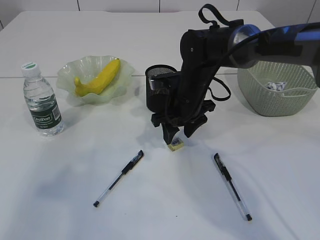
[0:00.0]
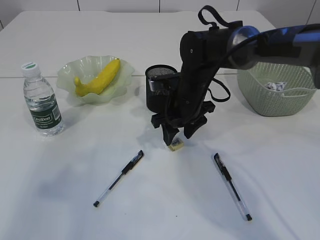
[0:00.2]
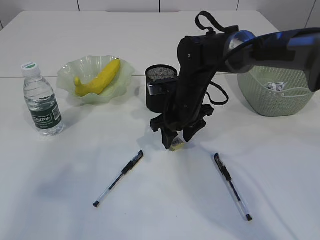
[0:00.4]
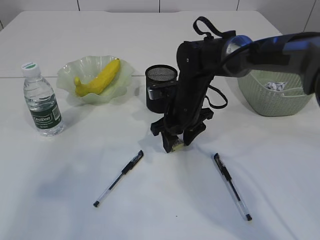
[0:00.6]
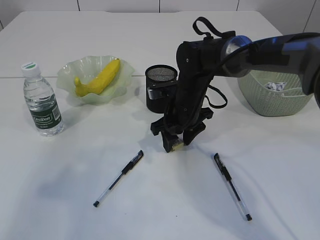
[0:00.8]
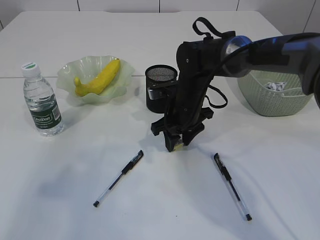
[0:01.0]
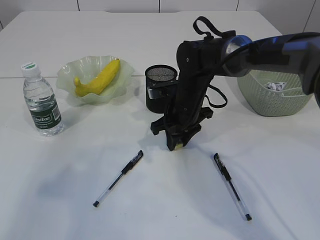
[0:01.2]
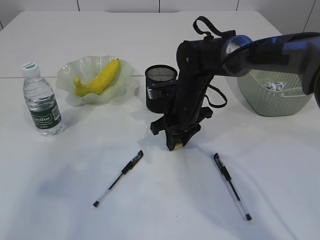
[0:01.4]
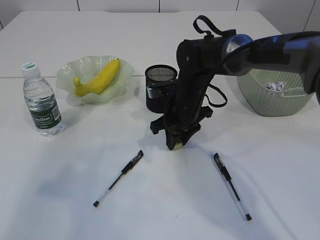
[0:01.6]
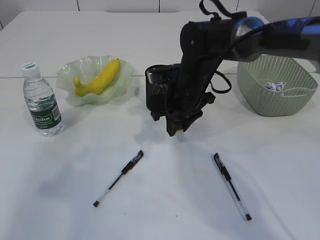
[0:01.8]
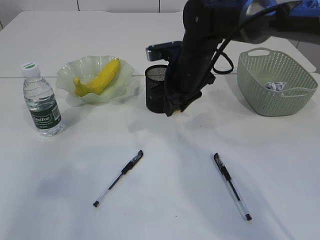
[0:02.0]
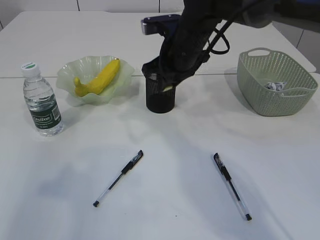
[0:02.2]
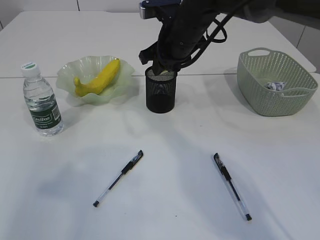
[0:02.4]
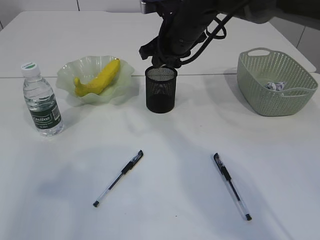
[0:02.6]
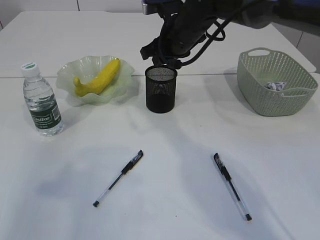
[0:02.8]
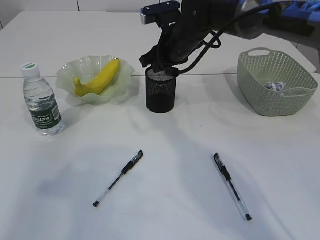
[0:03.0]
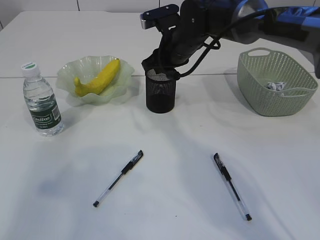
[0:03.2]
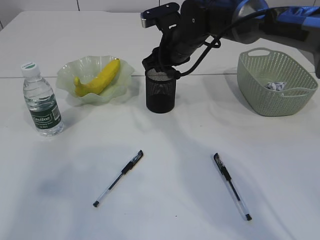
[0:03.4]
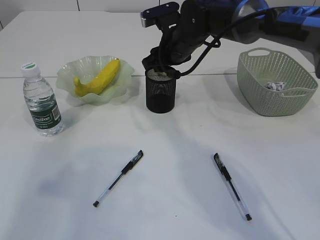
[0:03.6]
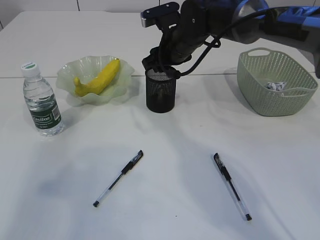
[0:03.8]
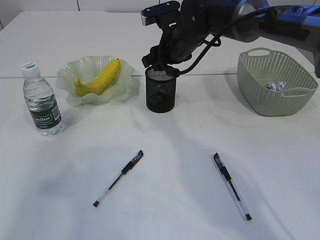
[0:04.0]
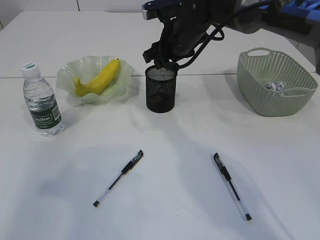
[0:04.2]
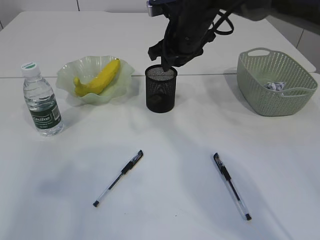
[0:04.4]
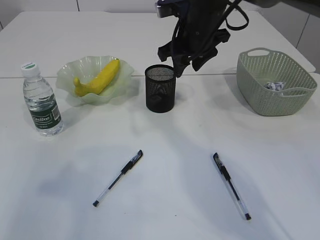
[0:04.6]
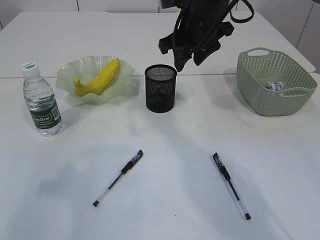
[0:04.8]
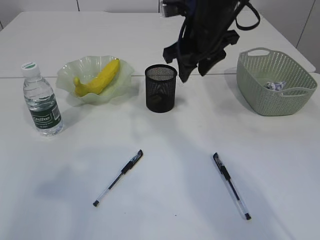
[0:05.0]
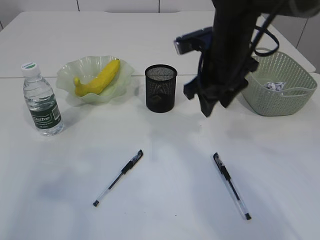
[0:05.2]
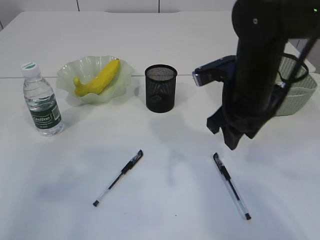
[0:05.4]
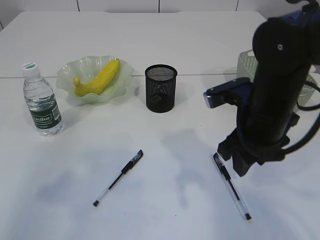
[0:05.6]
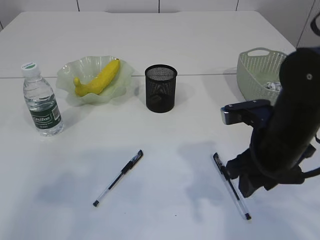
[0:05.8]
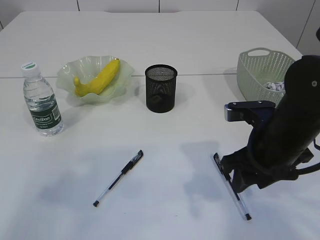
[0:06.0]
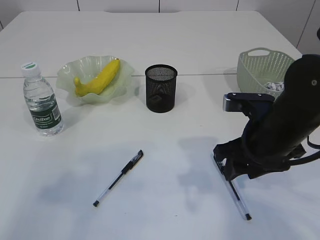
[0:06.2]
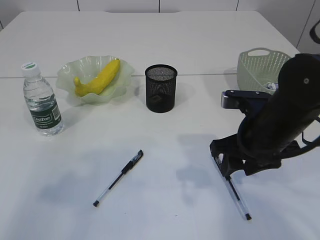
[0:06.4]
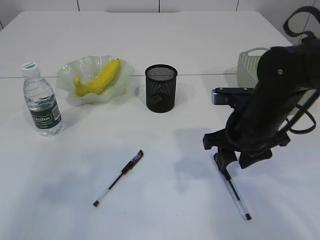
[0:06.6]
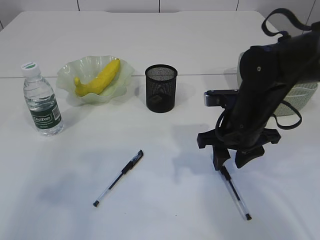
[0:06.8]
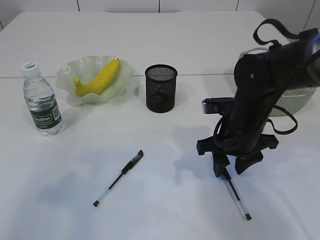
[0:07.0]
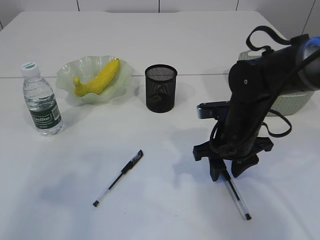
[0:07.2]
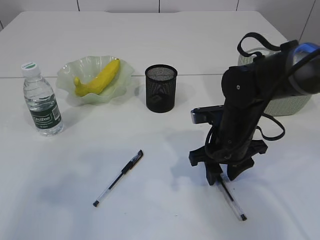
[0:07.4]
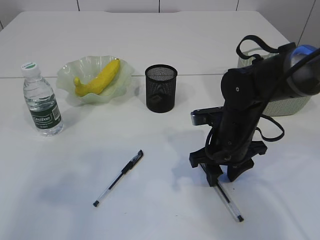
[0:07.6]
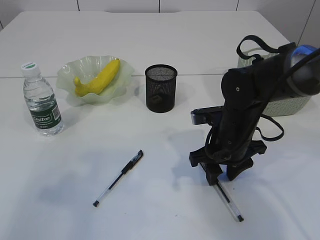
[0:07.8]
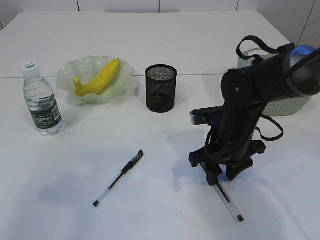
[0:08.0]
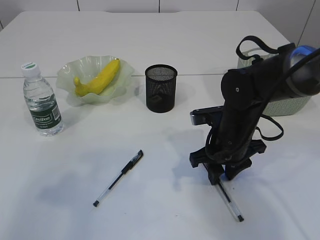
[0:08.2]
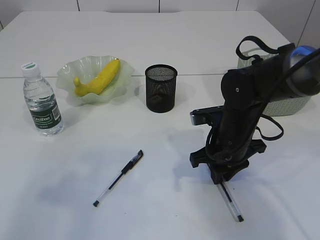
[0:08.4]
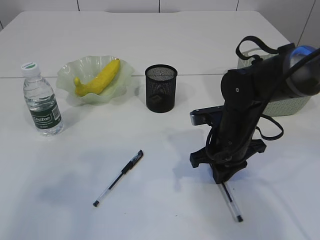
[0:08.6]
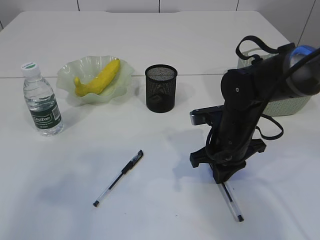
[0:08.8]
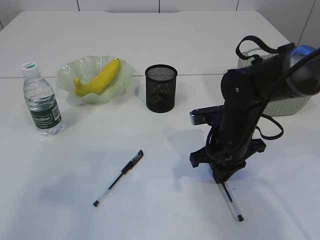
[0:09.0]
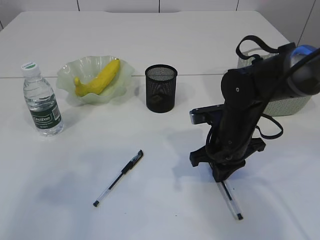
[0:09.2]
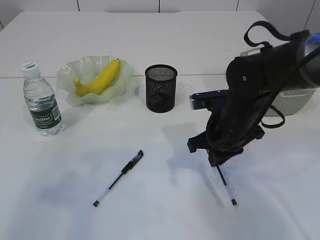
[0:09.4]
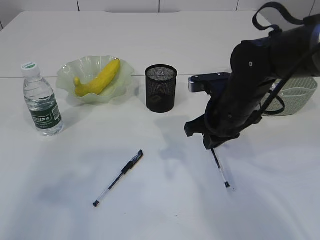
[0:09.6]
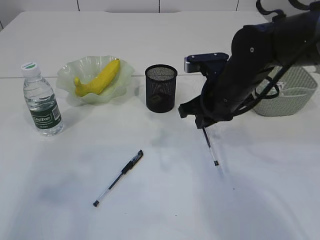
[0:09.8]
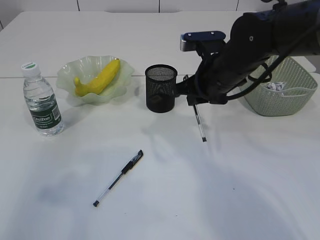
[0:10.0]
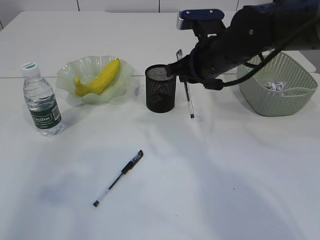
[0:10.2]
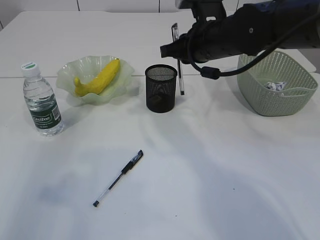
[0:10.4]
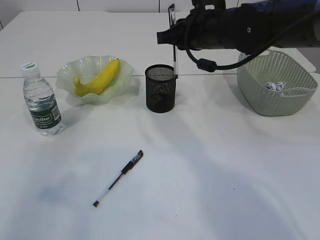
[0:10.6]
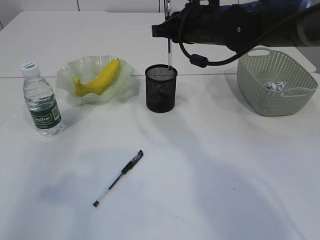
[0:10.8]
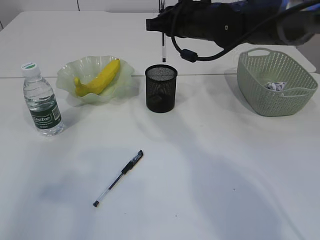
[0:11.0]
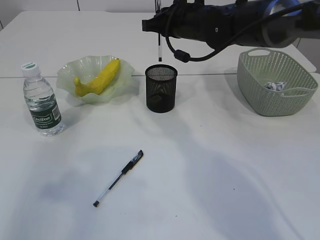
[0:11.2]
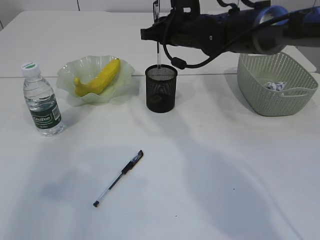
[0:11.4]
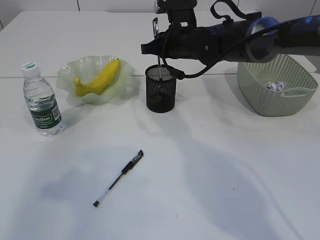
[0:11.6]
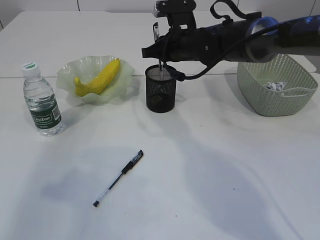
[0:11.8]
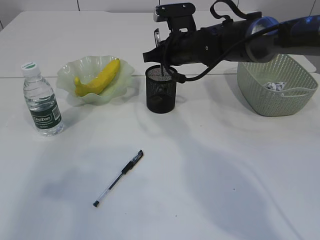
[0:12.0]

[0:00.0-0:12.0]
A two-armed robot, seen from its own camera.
Step, 0:02.0 to 0:04.6: Place the eraser into the pen holder.
Step, 0:04.8 to 0:09.6: Pick up the pen with right arm.
0:00.0 to 0:01.6: The right gripper closes.
0:01.6 to 0:03.0: The right gripper goes about 10 cm upward and forward.
0:03.0 to 0:04.4: The grippers move only a little.
0:04.4 to 0:06.0: The right gripper travels backward and to the right by roughly 20 cm.
0:06.0 to 0:07.6: The right gripper travels forward and downward by approximately 10 cm.
0:07.6 to 0:09.0: The right gripper closes its fingers.
0:09.0 to 0:10.4: The right gripper is displaced upward and forward by some 15 cm.
0:10.4 to 0:12.0: The right gripper goes approximately 5 cm forward.

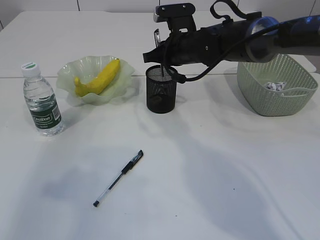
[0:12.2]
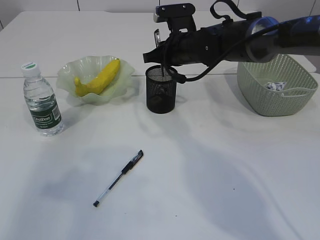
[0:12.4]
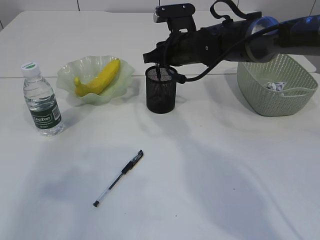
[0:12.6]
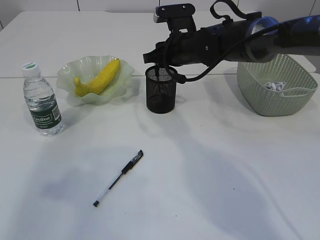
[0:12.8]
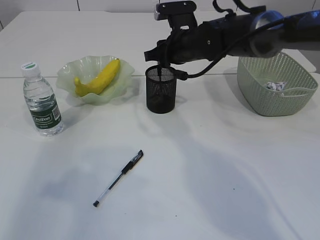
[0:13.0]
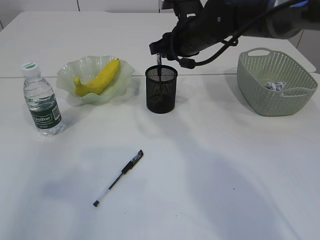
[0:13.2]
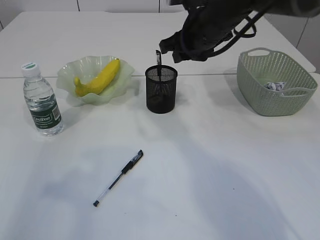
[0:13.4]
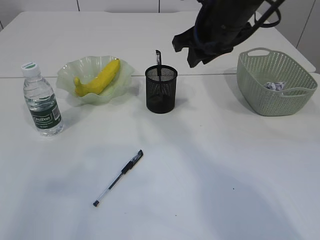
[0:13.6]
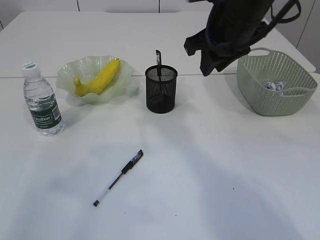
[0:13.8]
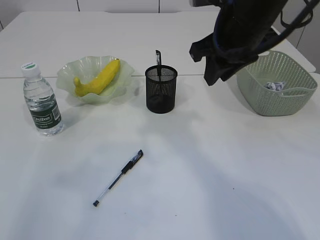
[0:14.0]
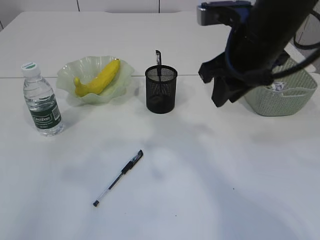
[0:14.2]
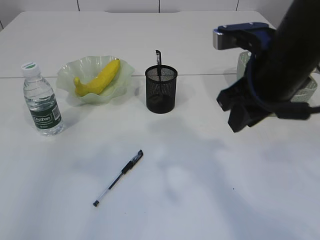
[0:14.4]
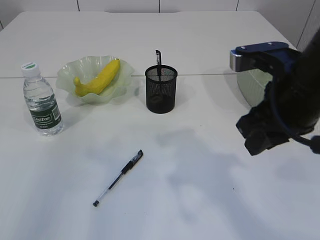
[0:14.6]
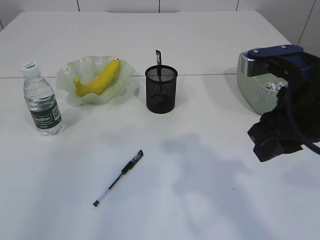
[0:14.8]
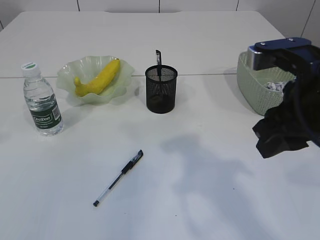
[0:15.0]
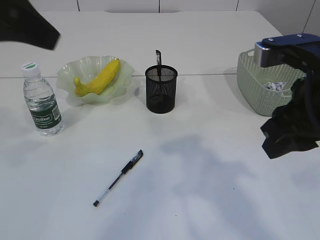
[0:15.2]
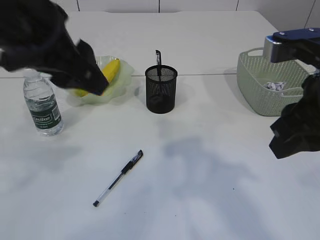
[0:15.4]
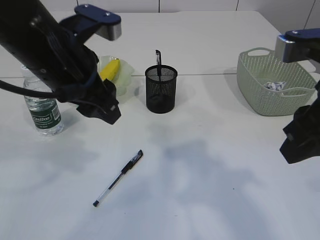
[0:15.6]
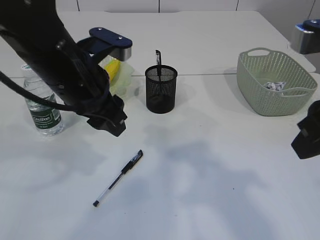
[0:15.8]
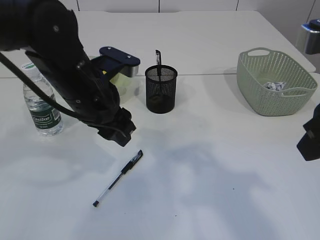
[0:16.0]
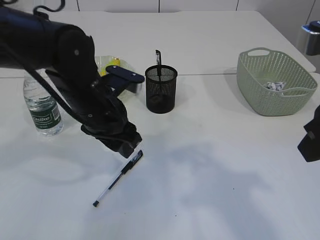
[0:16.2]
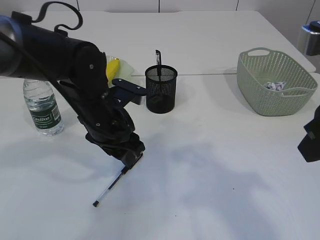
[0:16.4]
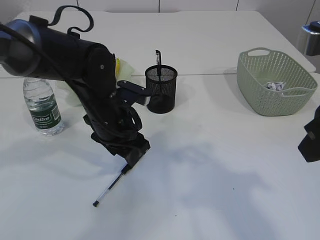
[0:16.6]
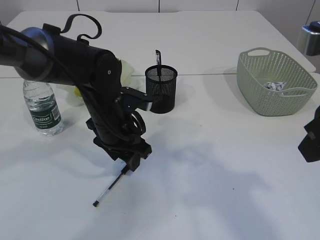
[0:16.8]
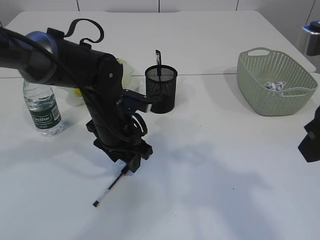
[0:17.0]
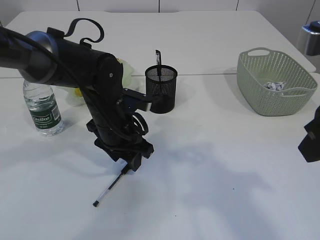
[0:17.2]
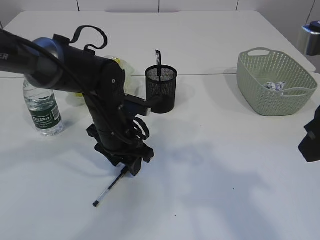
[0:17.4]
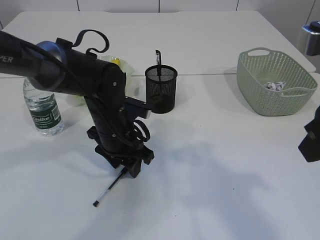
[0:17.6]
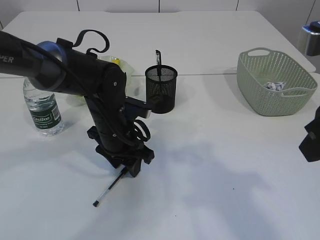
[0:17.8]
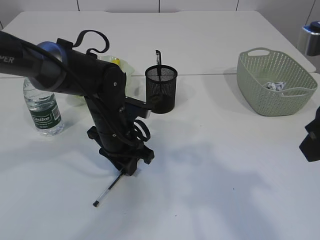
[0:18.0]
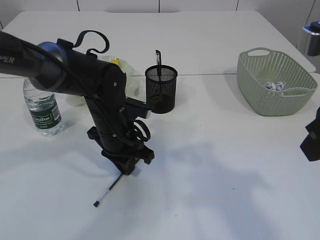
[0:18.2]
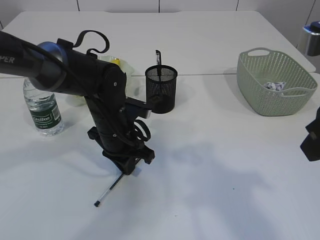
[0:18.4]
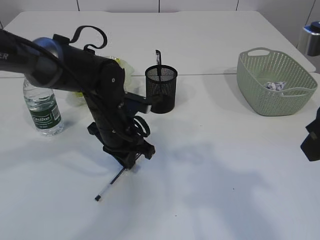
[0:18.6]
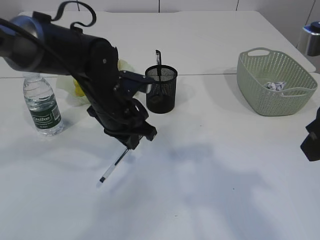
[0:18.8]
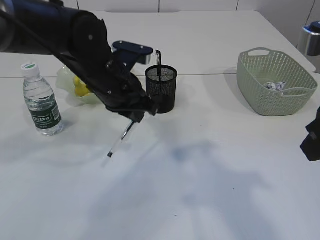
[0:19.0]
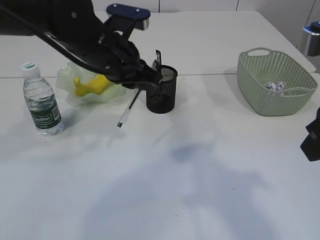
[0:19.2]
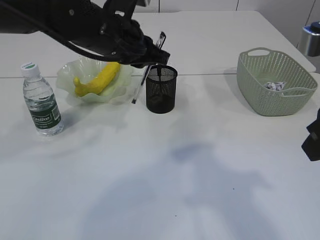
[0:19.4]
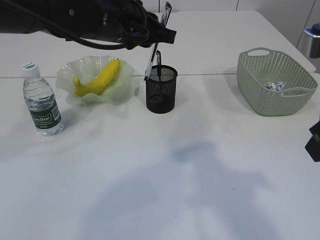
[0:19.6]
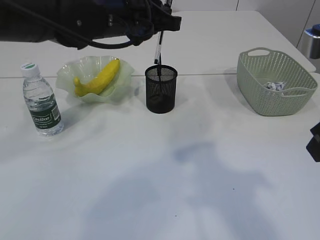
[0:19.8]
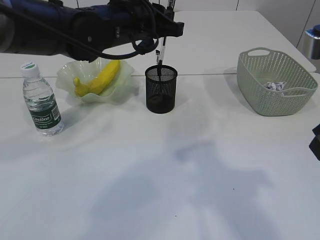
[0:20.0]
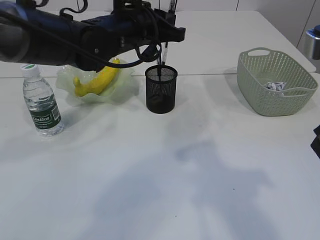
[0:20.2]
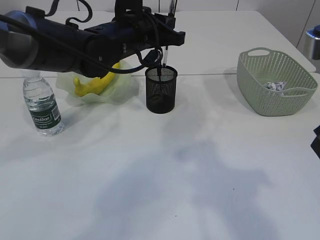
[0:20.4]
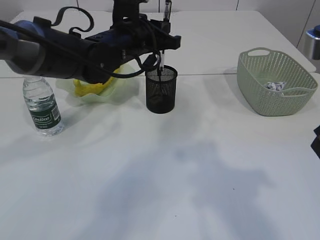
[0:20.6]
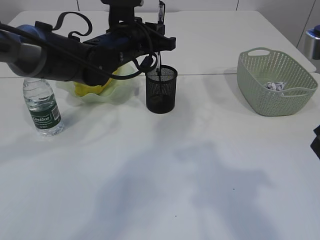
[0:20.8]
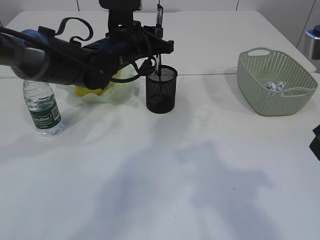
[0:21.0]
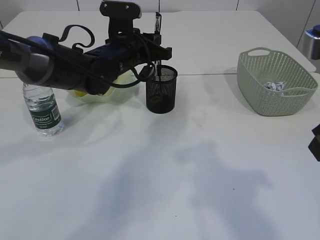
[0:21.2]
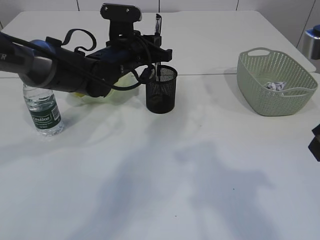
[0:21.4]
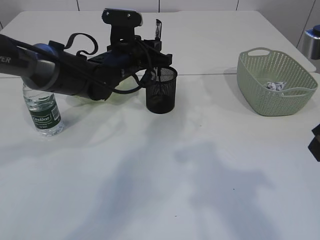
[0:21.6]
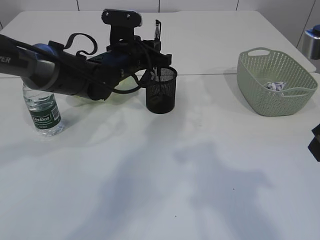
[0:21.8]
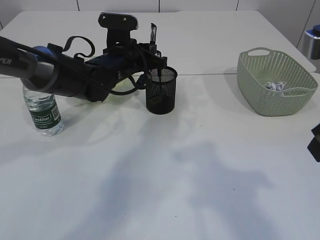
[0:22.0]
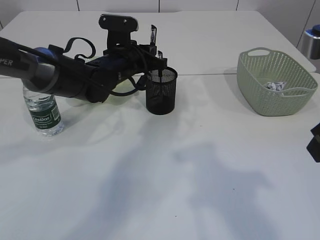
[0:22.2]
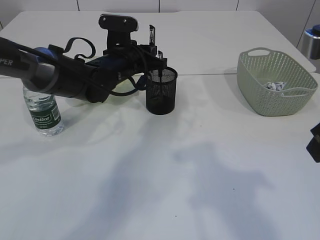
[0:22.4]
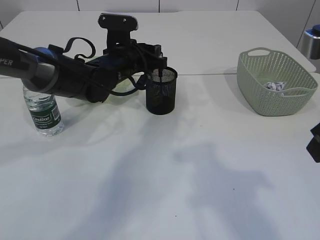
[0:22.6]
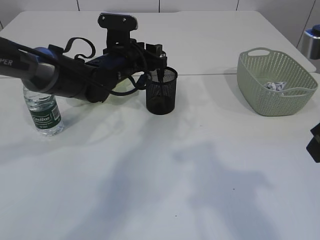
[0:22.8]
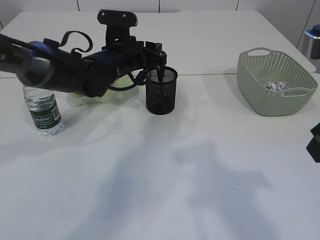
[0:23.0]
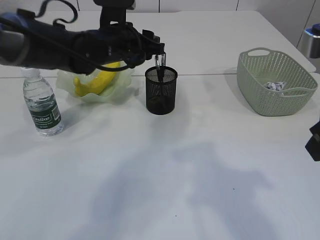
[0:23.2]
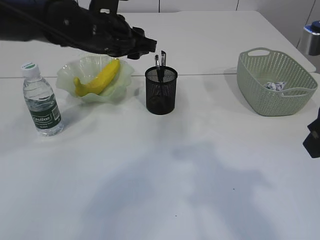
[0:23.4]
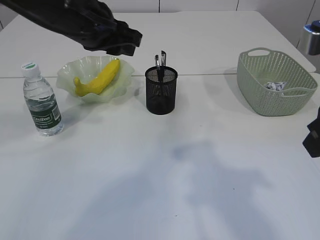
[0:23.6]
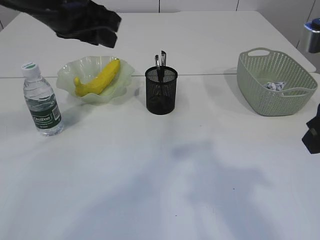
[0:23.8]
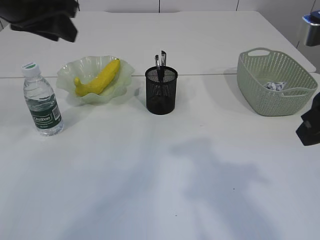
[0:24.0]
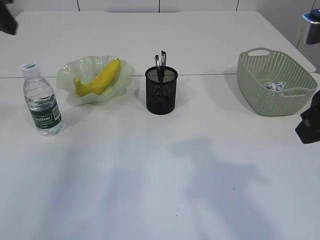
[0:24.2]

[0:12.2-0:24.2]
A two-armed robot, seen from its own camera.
Step, 0:13.4 to 0:19.0: Pick up the pen with left arm.
Step, 0:19.2 to 0:23.2: Place the pen into the pen holder.
0:12.2 to 0:13.8: The right gripper is displaced upward and backward by approximately 15 cm.
0:13.8 to 0:15.2: The left gripper travels to the right and forward by approximately 15 cm; the right gripper is displaced backward by approximately 15 cm.
0:15.2 to 0:16.6: The right gripper shifts by approximately 5 cm. Meanwhile the left gripper shifts approximately 30 cm downward, to the right and forward.
0:16.6 to 0:18.2: The left gripper closes up.
0:18.2 to 0:19.8: The left gripper goes about 20 cm upward.
0:19.8 to 0:21.2: The left gripper heads downward, covering about 10 cm.
0:21.2 to 0:22.6: The left gripper opens up.
0:22.6 to 0:24.2: The left gripper shifts approximately 30 cm upward, to the left and backward.
